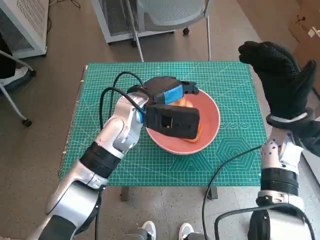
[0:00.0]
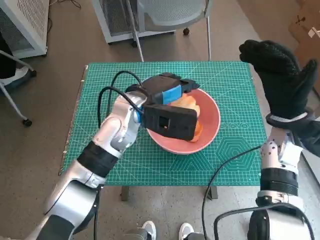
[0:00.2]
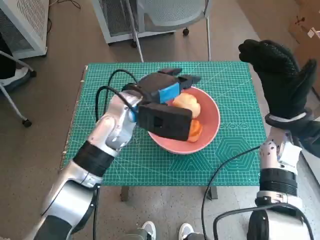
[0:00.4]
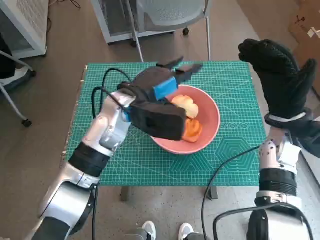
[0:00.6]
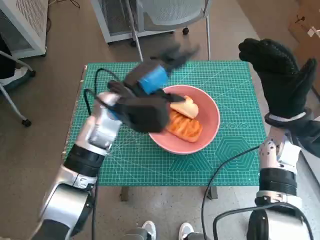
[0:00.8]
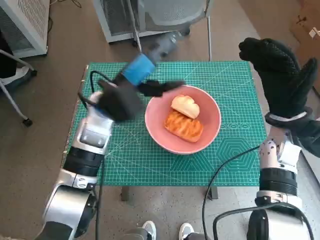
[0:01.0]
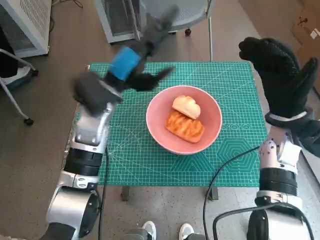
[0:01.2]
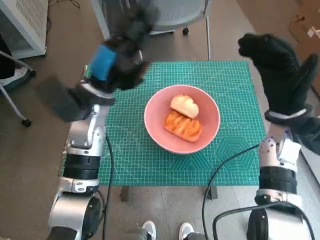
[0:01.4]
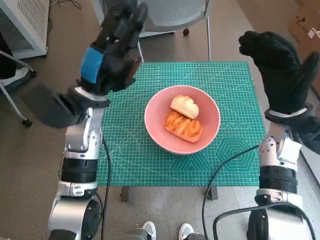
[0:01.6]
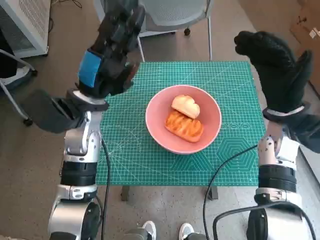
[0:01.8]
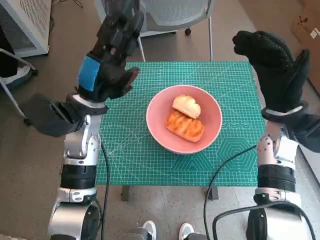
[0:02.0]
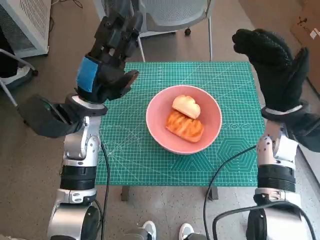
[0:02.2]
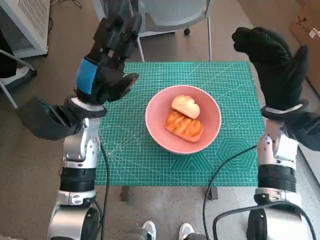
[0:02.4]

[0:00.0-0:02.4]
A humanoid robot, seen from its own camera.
0:00.0 to 0:01.2: The left hand moves to the left, some 5 cm.

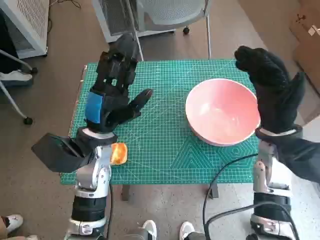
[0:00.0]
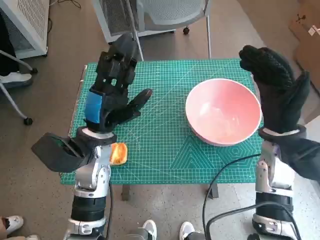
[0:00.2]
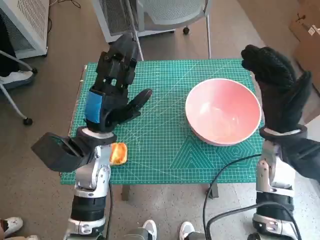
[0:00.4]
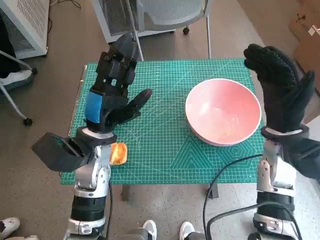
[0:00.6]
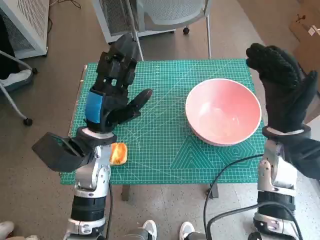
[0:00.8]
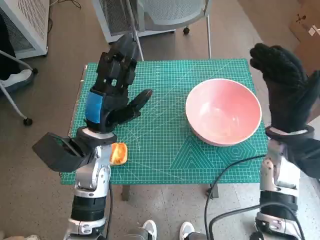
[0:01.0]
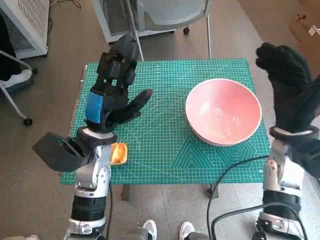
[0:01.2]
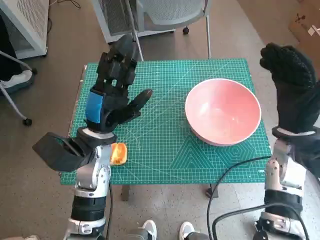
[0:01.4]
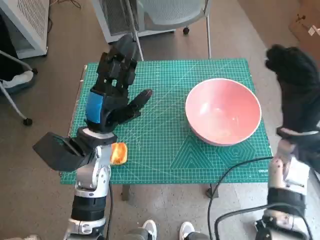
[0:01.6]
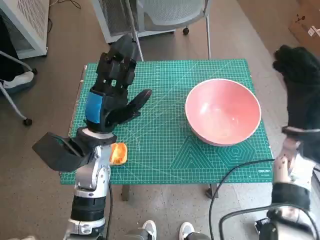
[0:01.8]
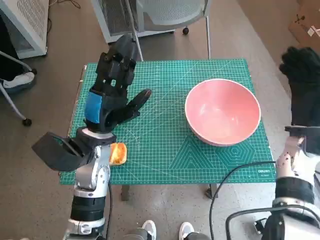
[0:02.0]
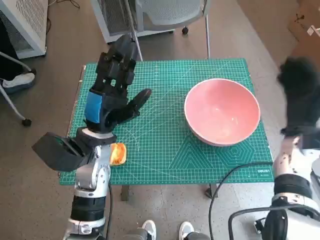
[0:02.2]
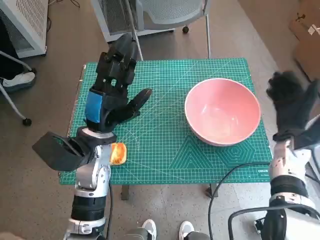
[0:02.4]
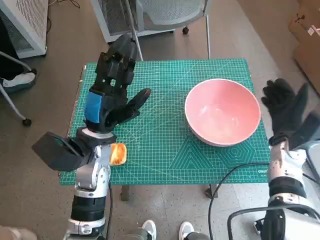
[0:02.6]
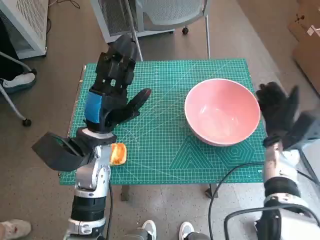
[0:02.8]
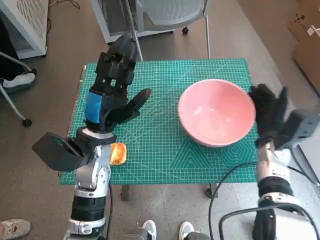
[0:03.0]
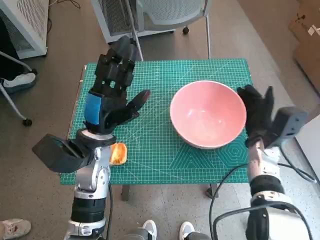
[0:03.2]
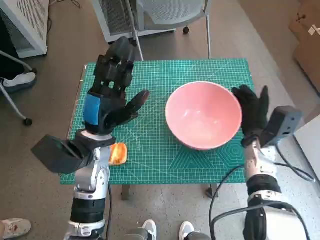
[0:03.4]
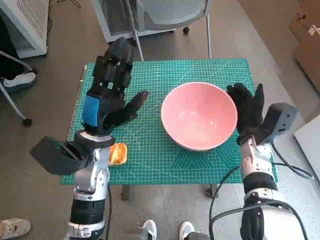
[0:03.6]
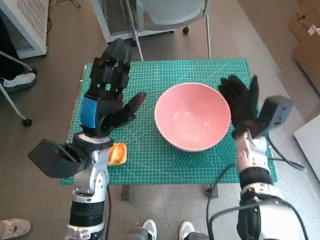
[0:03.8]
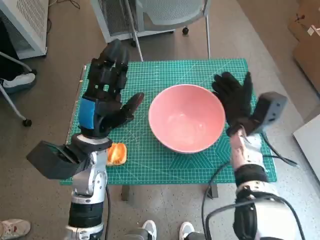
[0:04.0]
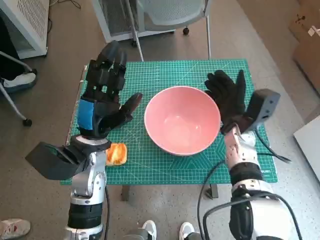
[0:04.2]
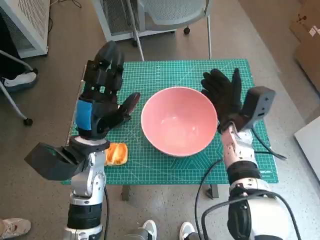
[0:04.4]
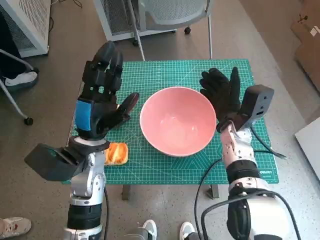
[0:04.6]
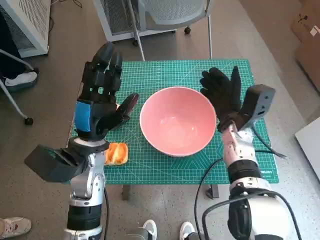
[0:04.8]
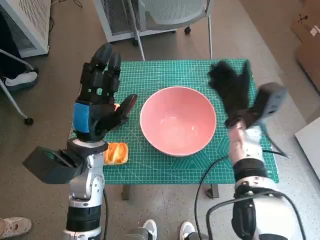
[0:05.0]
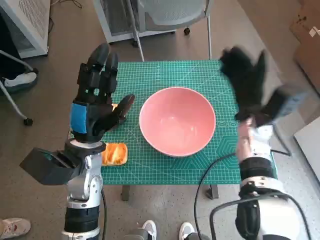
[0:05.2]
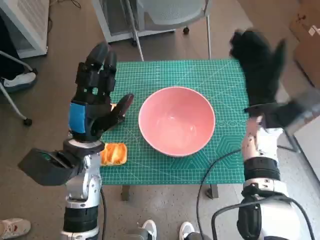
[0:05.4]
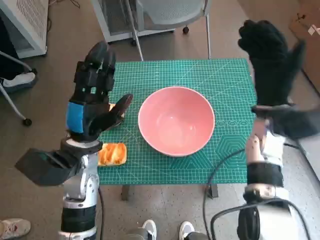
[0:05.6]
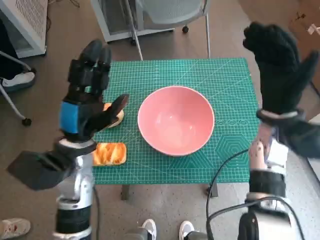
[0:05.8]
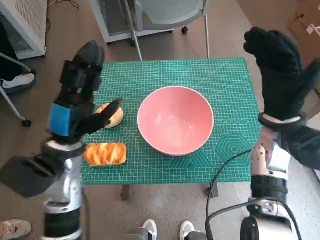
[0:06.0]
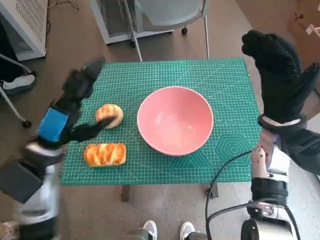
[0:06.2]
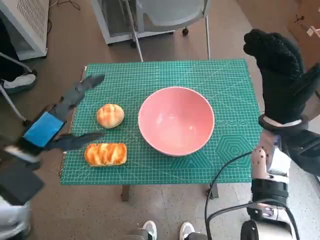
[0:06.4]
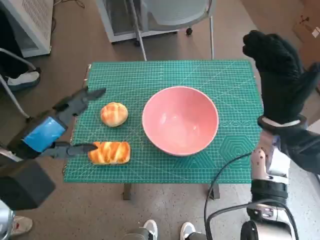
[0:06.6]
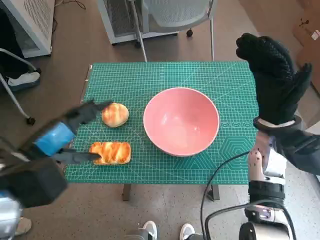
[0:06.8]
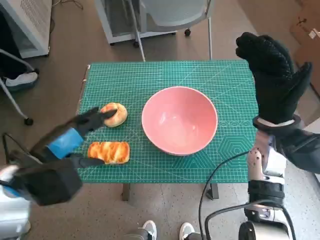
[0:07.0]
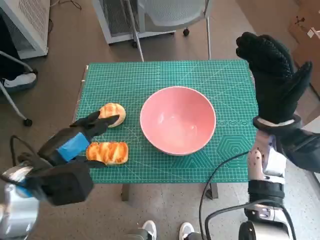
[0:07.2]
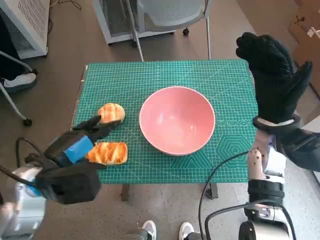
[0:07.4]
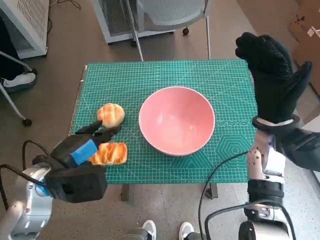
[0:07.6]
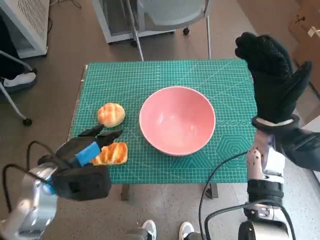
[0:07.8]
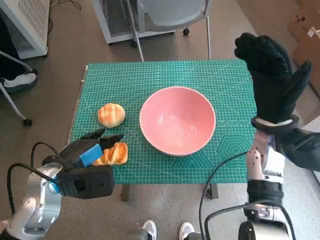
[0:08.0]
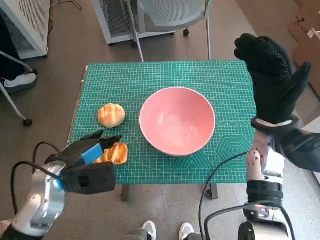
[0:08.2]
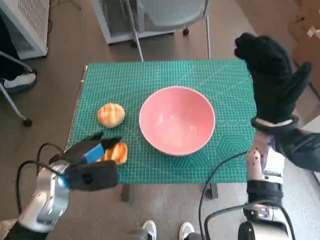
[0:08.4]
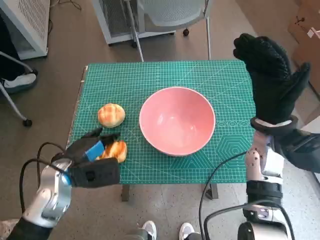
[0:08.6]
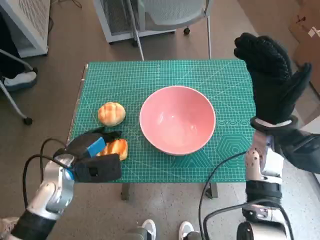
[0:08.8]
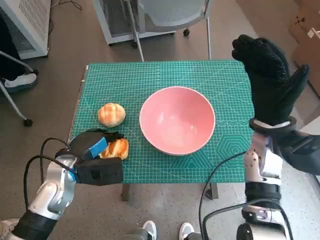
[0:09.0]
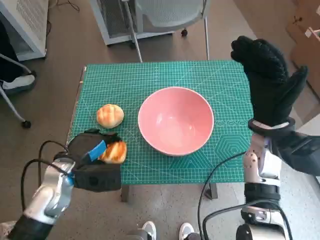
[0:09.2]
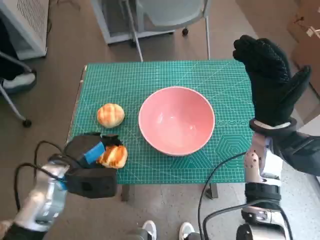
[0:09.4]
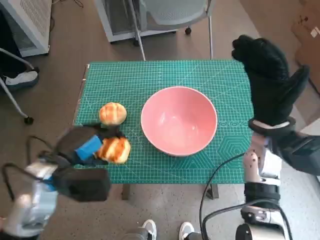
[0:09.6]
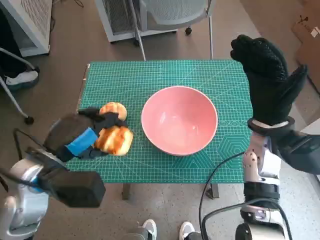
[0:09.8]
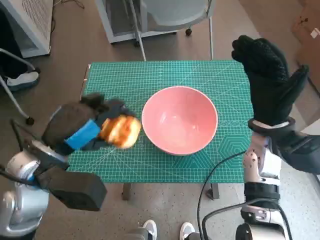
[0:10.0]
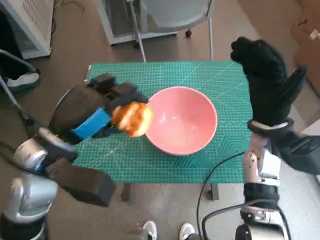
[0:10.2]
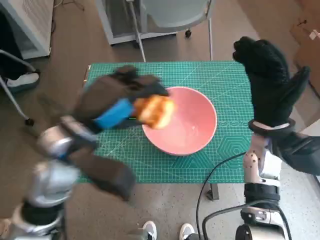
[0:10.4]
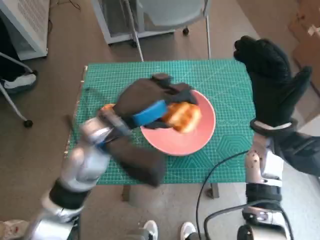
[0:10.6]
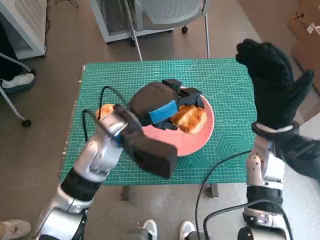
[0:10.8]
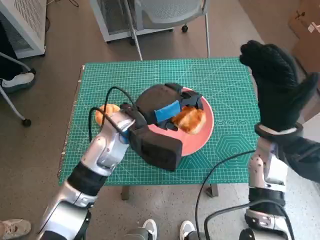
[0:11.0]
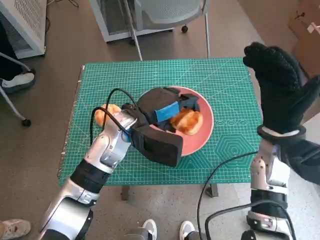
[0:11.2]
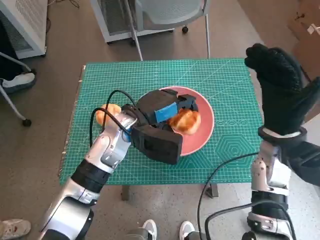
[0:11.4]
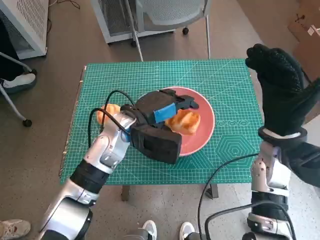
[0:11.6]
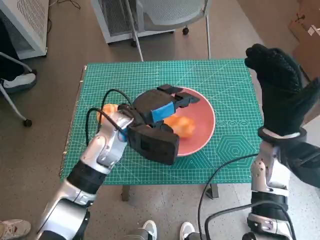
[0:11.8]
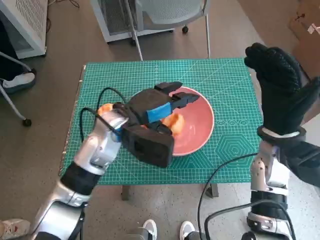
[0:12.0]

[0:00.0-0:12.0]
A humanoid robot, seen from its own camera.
Step, 0:00.0 to 0:04.8: Move the pink bowl to the center of table with right hand.
Step, 0:05.0 to 0:09.0: Grasp the long bread with left hand.
0:01.6 to 0:03.0: The right hand heads downward, covering approximately 10 cm.
0:03.0 to 0:04.4: The right hand shifts roughly 10 cm to the left.
0:04.4 to 0:06.0: The right hand heads upward, covering roughly 10 cm.
0:07.6 to 0:09.0: The left hand shifts roughly 5 cm downward.
0:09.0 to 0:10.4: The left hand shifts approximately 15 cm upward and to the right.
0:10.4 to 0:12.0: The left hand heads forward, downward and to the right, covering approximately 10 cm.

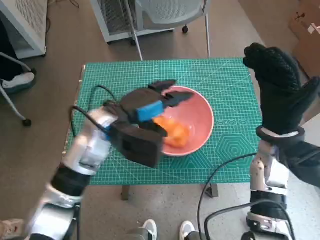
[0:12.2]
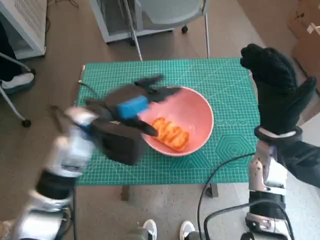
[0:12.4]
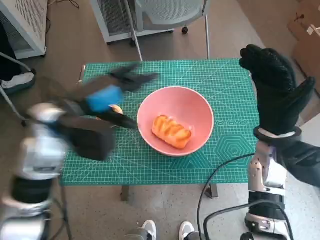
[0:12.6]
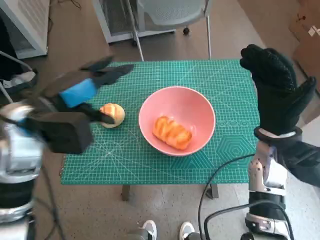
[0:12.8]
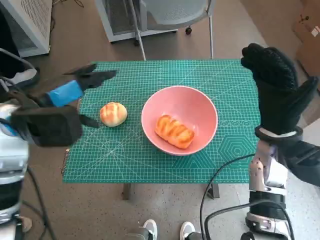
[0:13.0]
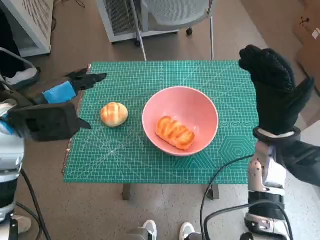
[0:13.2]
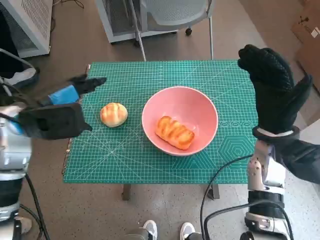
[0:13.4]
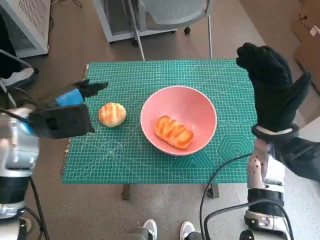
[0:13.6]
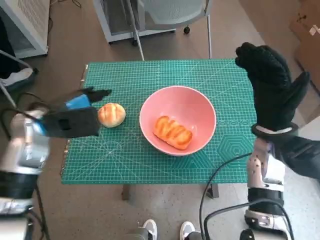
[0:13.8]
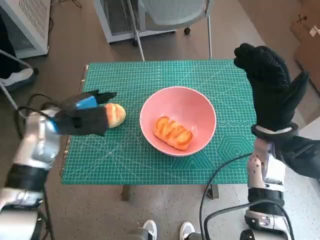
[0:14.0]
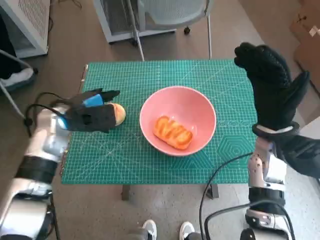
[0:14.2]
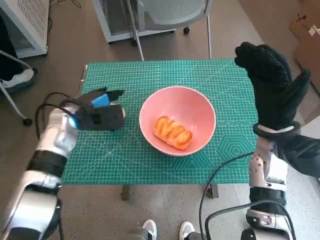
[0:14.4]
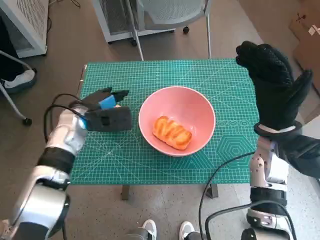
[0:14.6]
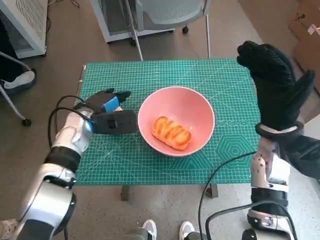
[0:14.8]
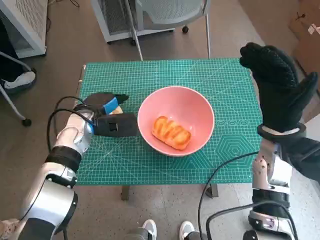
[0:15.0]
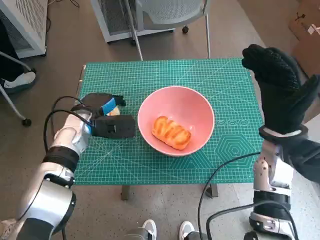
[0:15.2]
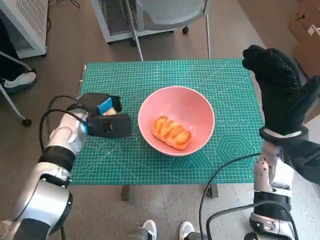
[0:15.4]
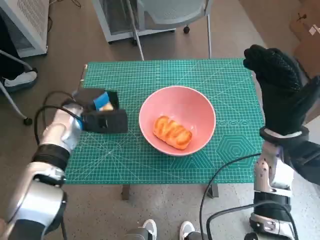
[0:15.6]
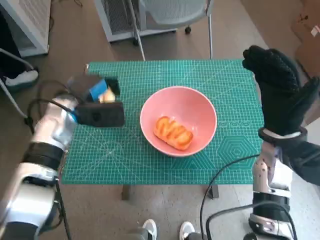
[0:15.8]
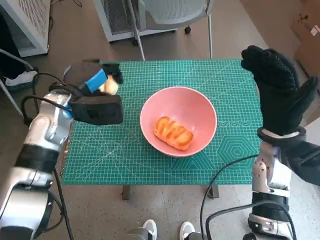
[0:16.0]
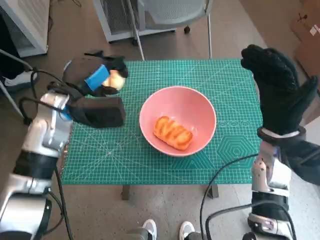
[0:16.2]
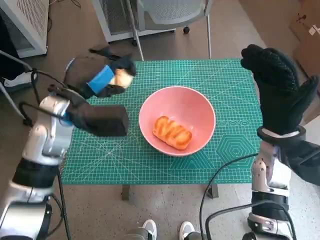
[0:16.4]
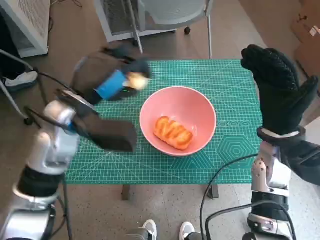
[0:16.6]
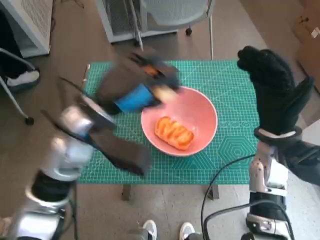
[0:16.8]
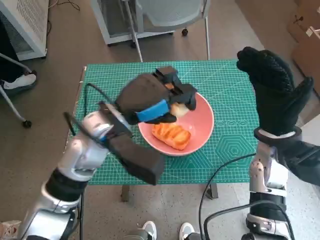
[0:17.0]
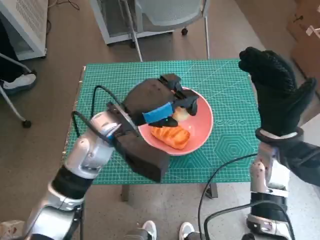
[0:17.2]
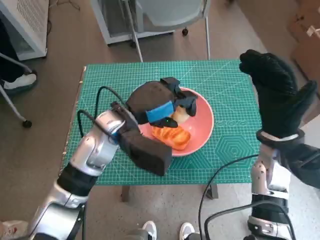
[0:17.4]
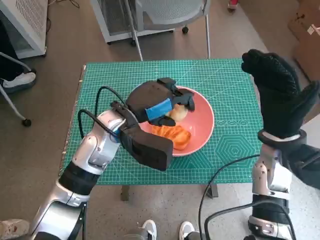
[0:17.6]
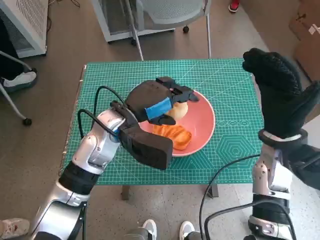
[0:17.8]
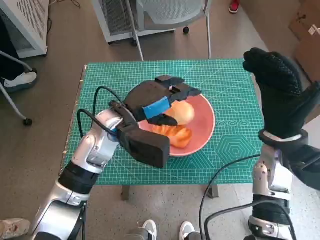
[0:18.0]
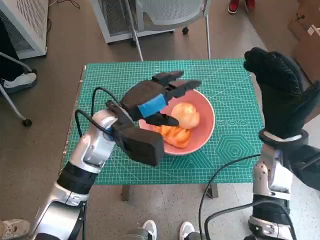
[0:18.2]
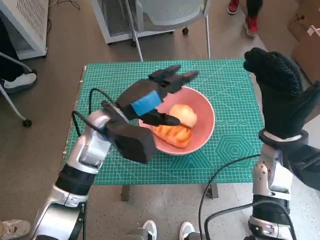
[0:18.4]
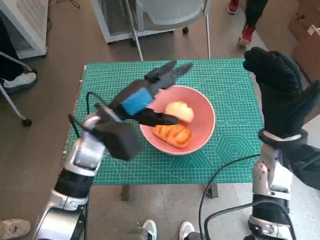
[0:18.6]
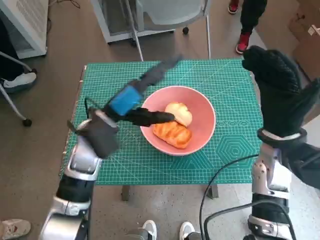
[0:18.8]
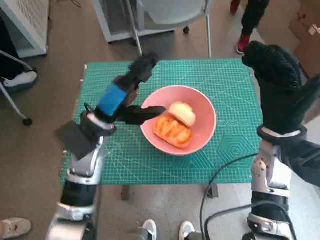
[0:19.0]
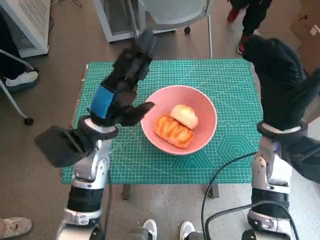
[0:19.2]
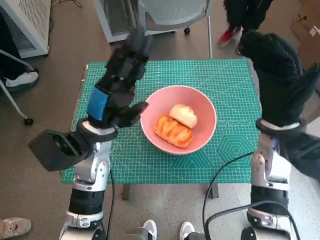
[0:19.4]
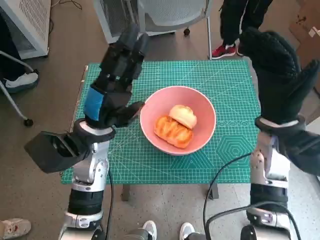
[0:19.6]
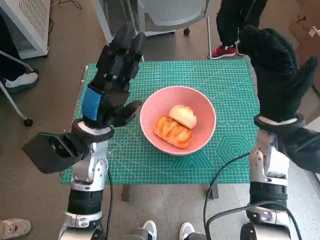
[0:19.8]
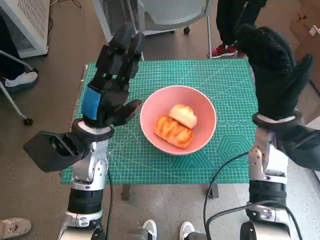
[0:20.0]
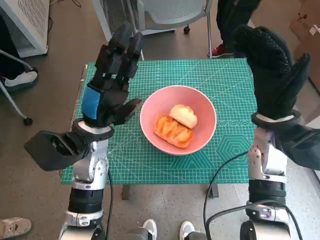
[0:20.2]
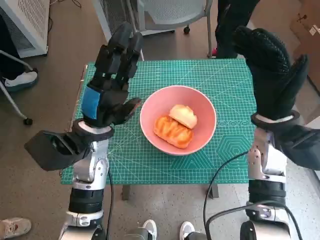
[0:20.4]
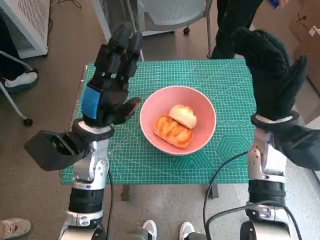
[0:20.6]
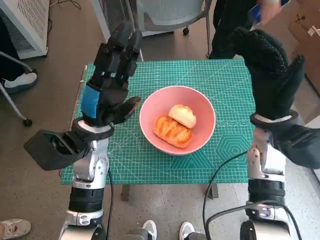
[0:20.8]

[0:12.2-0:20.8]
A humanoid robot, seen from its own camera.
Step, 0:12.2 to 0:15.2: Grasp the round bread with left hand.
Step, 0:15.4 to 0:18.2: Place the round bread in pink bowl with left hand.
0:12.2 to 0:13.6: The left hand goes approximately 15 cm to the left.
0:13.6 to 0:15.0: The left hand travels downward, forward and to the right by about 15 cm.
0:15.0 to 0:16.6: The left hand moves upward and backward, some 15 cm.
0:16.6 to 0:18.0: The left hand shifts some 5 cm to the right.
